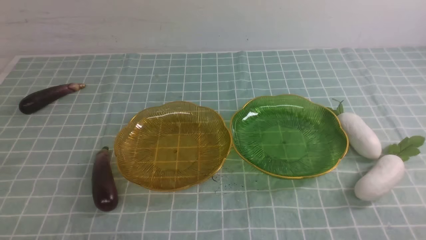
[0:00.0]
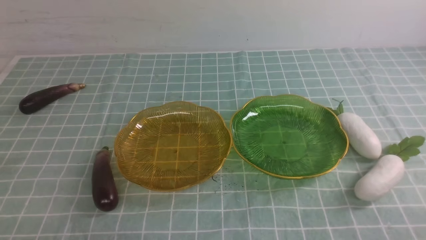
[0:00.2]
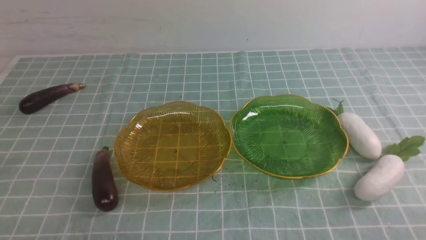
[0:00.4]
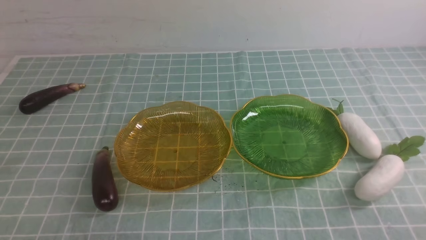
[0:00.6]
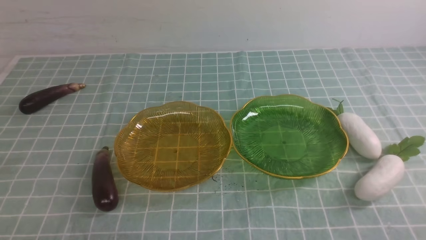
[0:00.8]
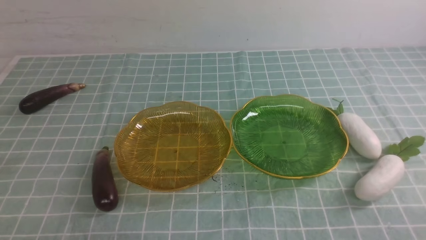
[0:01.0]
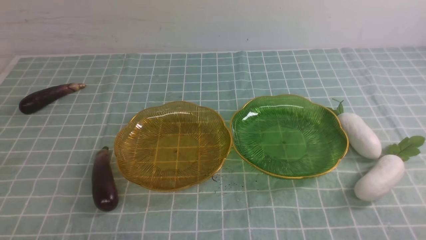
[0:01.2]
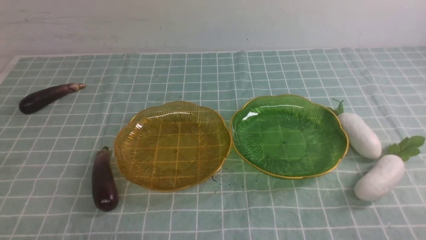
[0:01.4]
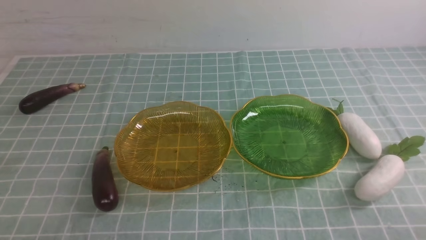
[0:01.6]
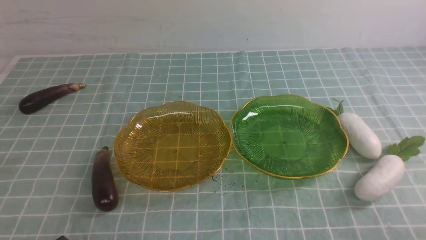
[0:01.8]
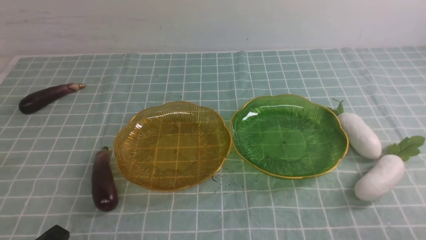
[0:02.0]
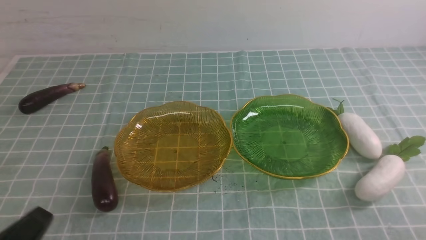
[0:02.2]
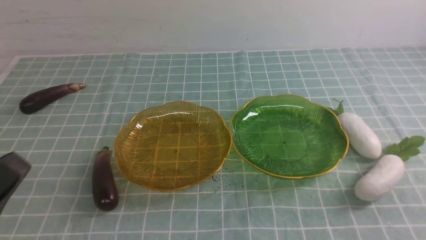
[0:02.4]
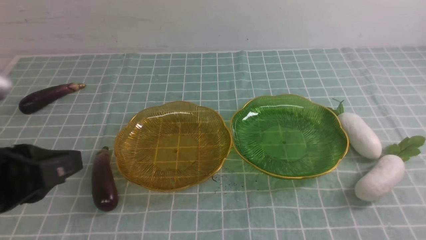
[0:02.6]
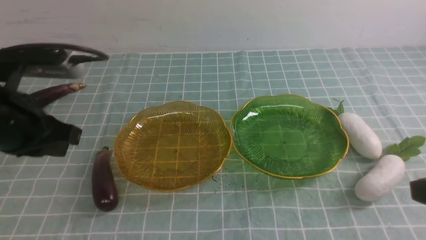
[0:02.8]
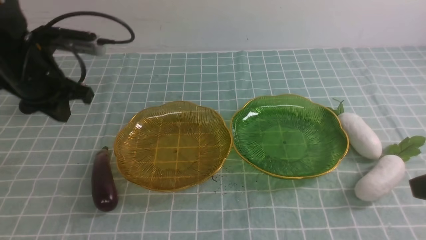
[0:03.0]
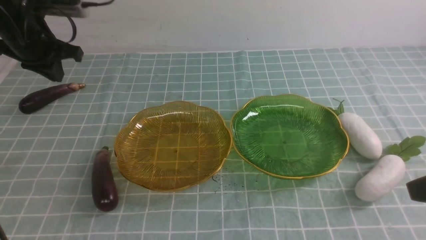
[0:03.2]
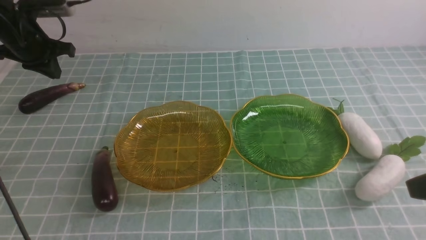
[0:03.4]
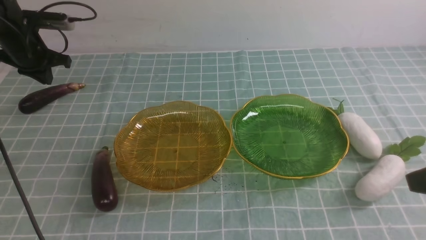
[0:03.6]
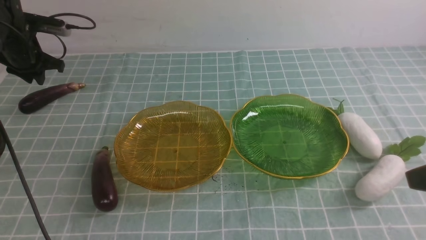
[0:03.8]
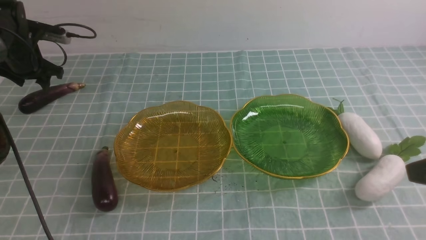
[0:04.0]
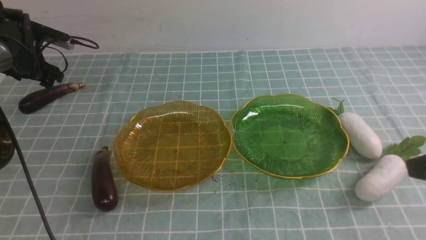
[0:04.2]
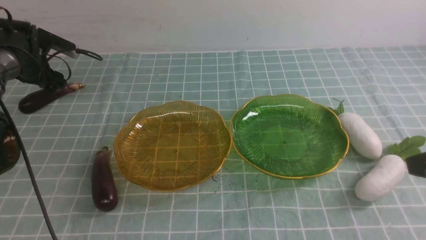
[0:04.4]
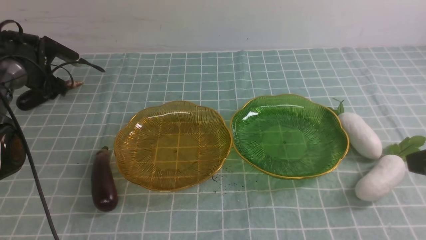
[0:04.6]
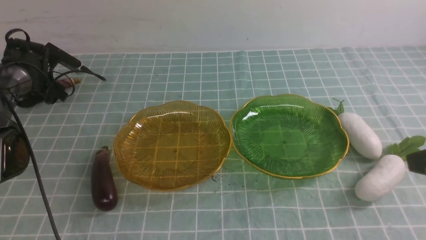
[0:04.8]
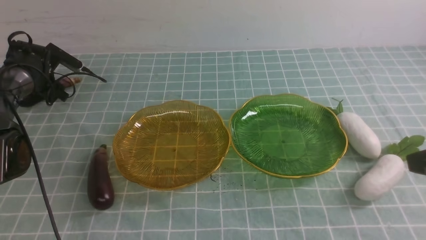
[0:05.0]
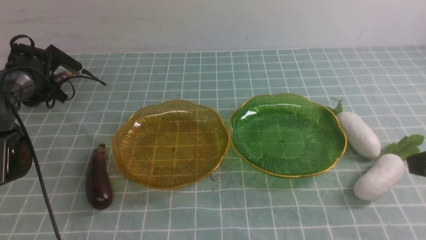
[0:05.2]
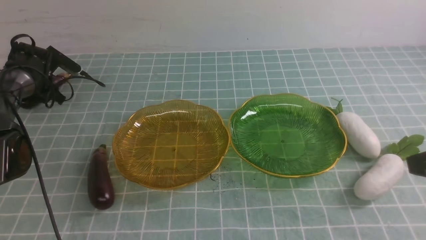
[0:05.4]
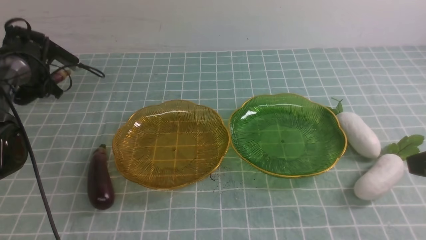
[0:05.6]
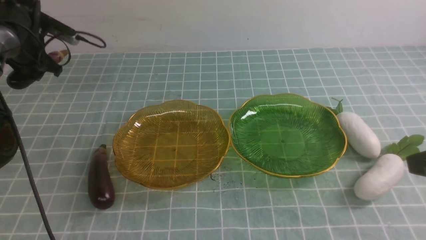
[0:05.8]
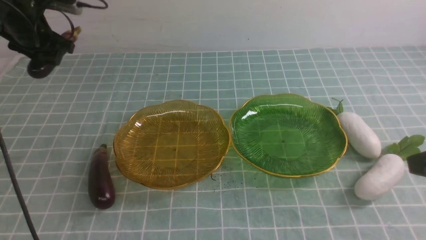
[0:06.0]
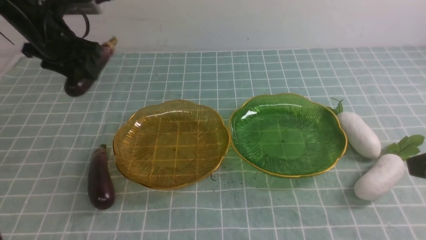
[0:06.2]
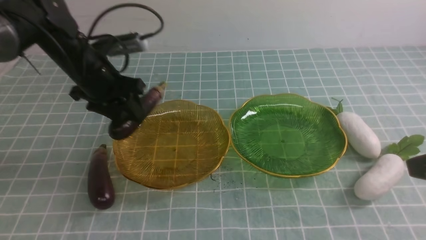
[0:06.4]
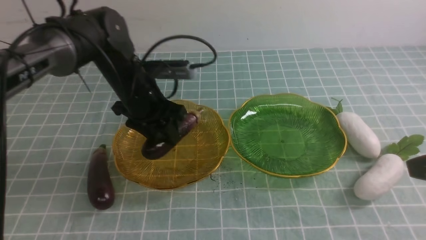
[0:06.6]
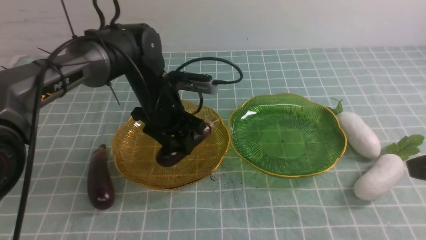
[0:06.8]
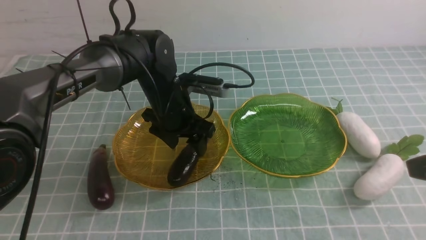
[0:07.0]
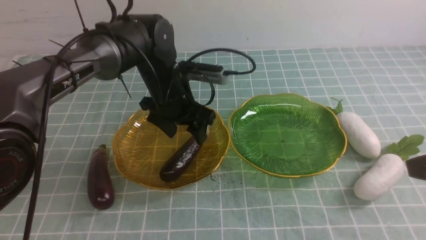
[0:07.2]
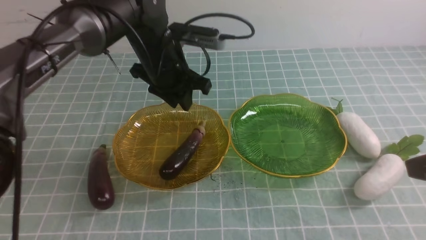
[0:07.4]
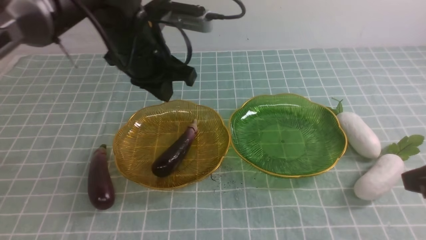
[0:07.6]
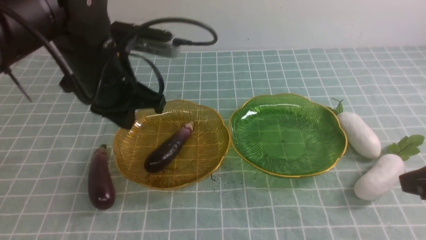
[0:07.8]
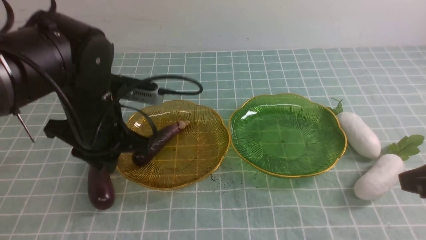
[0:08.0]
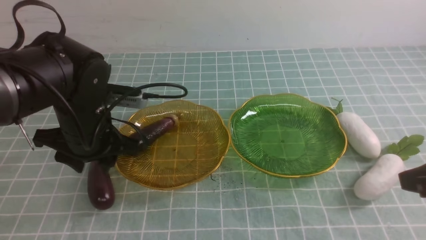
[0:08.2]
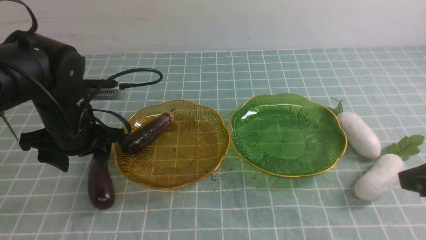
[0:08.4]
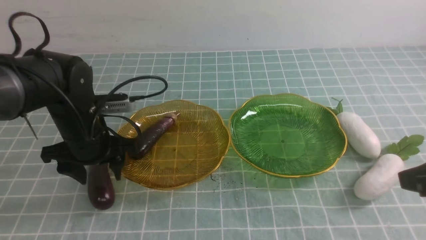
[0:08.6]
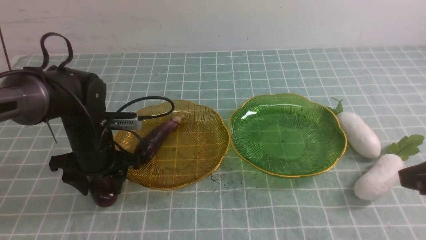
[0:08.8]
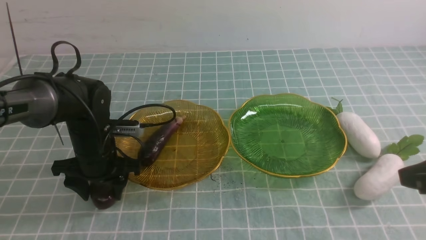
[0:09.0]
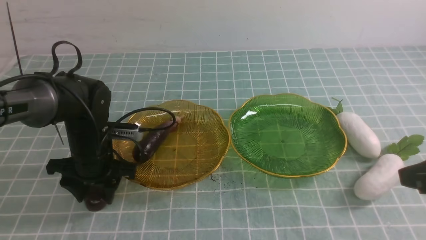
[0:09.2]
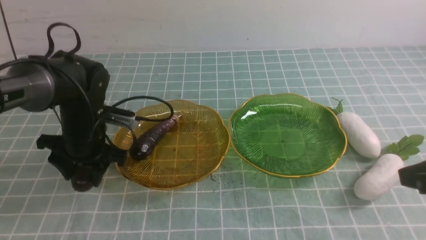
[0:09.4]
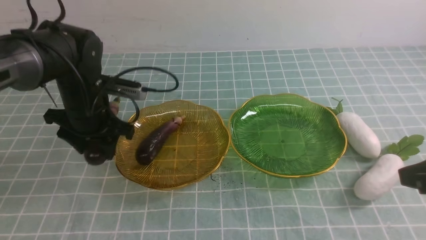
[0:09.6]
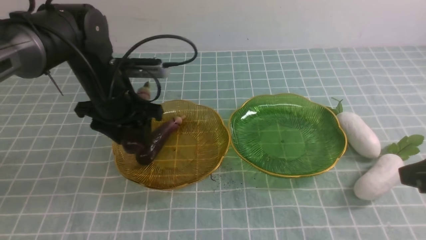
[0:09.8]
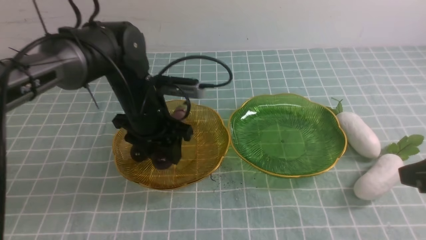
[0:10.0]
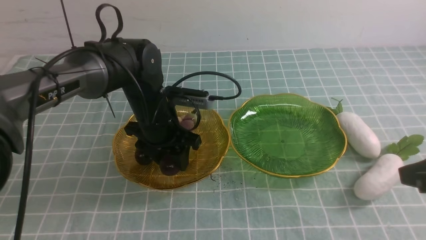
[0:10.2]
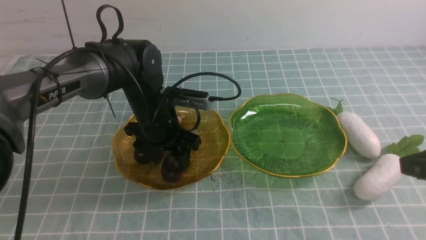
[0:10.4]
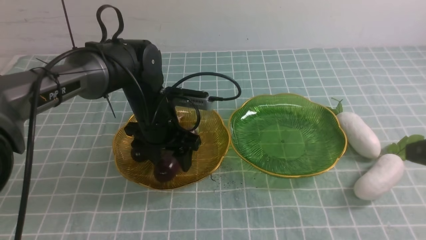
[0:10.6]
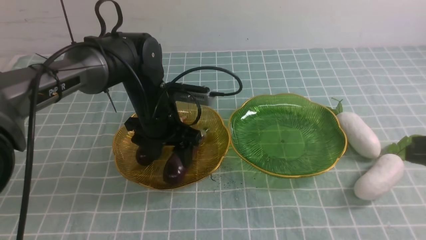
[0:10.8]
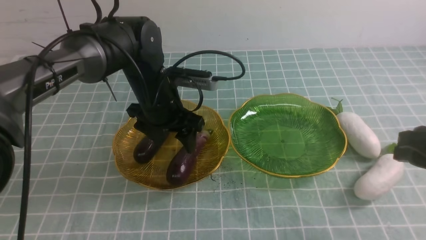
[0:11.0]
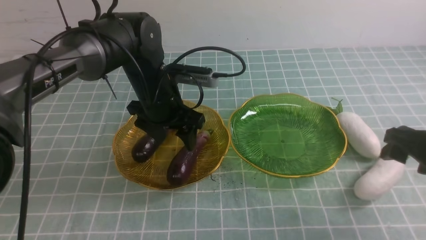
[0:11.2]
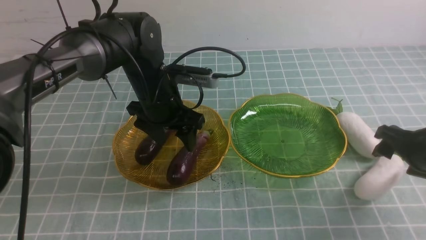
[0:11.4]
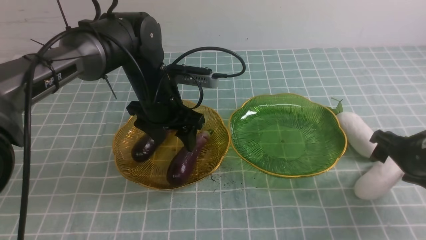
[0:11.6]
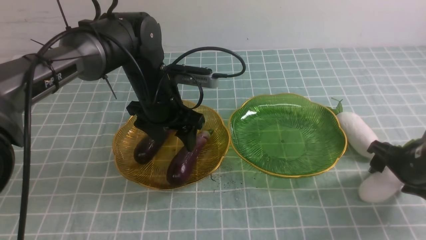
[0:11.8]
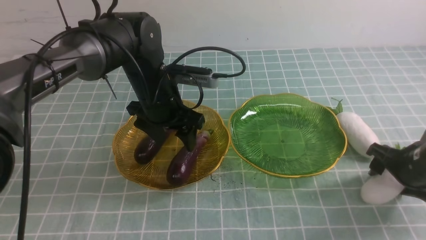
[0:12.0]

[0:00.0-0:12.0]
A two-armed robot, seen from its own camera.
Step, 0:00.0 to 0:10.8: use the left arm to grab an eggplant and put it into the left plate.
0:01.6 to 0:03.0: The left gripper moves forward and upward, some 35 cm.
0:03.0 to 0:04.4: The left gripper moves forward, downward and to the left, approximately 25 cm, and opens up.
0:04.4 to 0:06.0: The left gripper goes approximately 15 cm upward, to the right and backward, and closes up.
0:06.0 to 0:07.6: The left gripper moves to the right and backward, roughly 25 cm, and closes its fingers.
0:07.6 to 0:09.0: The left gripper goes roughly 20 cm downward and to the left, and opens its fingers.
0:09.0 to 0:10.4: The left gripper travels to the right by roughly 10 cm.
0:10.4 to 0:12.0: The right gripper travels downward and forward by about 20 cm, and opens its fingers.

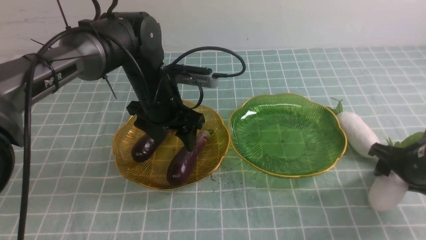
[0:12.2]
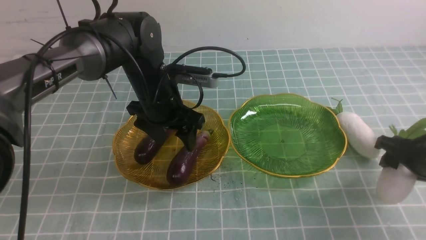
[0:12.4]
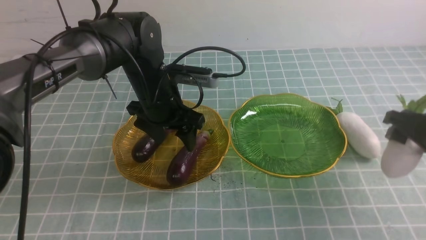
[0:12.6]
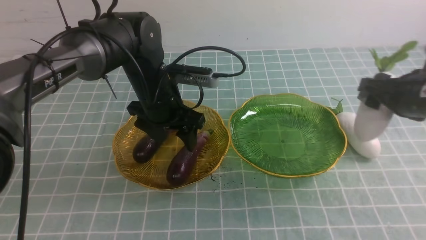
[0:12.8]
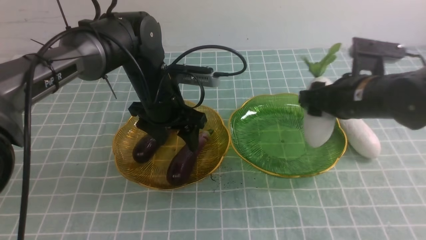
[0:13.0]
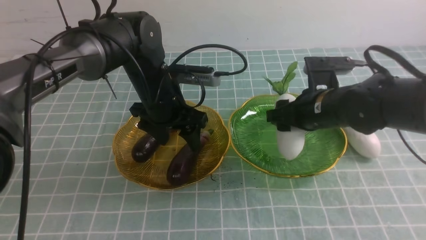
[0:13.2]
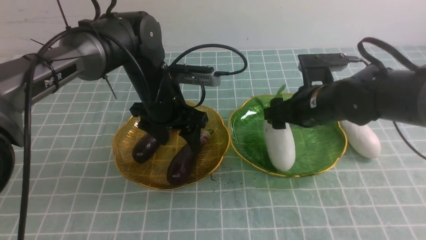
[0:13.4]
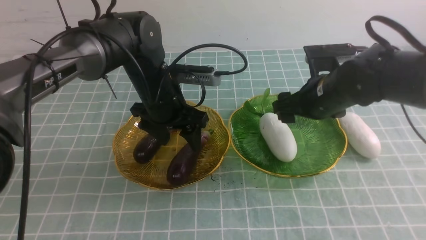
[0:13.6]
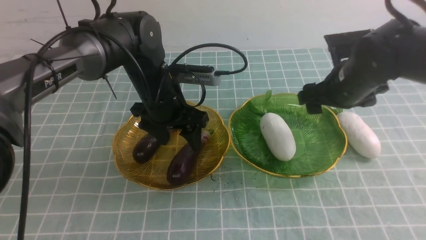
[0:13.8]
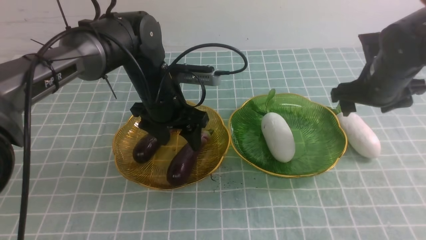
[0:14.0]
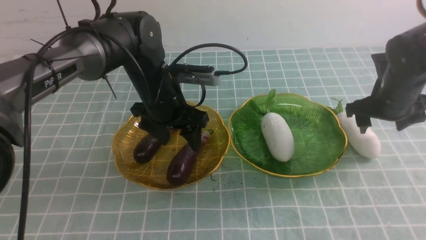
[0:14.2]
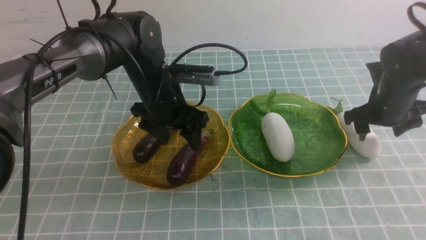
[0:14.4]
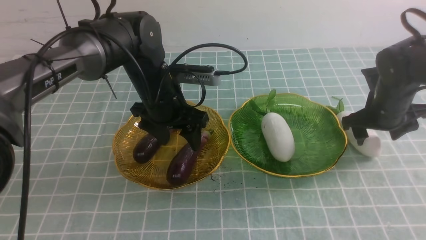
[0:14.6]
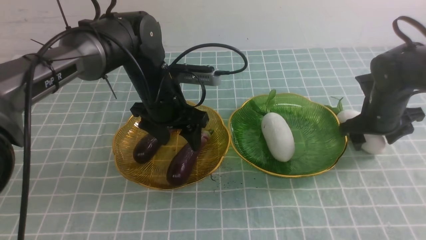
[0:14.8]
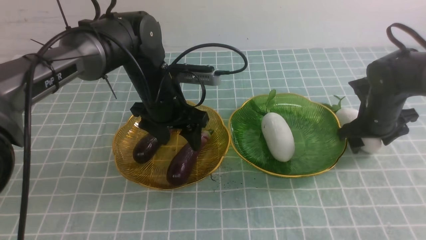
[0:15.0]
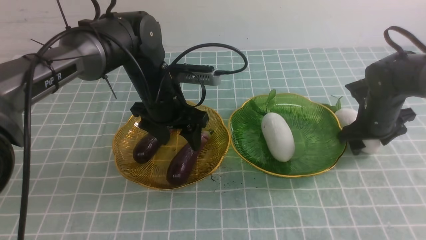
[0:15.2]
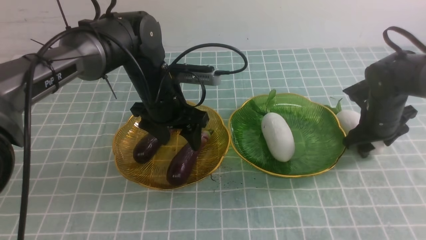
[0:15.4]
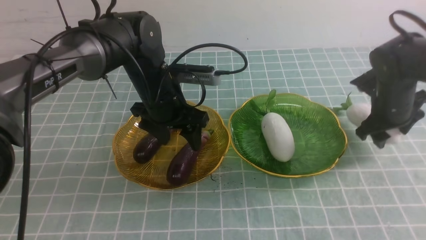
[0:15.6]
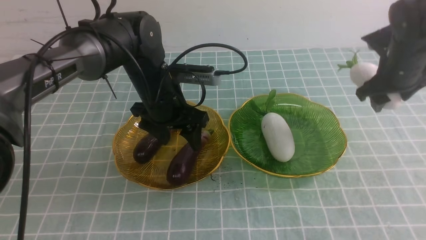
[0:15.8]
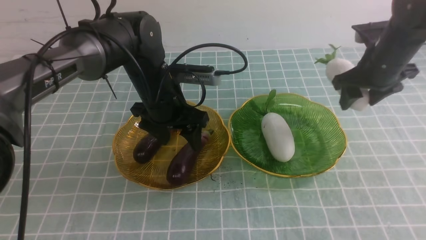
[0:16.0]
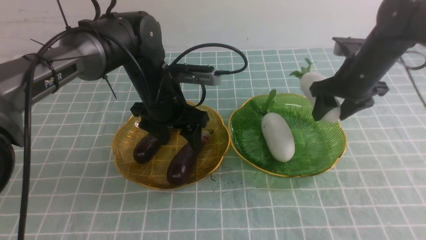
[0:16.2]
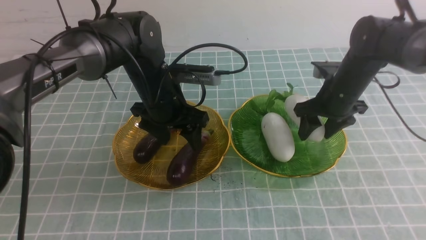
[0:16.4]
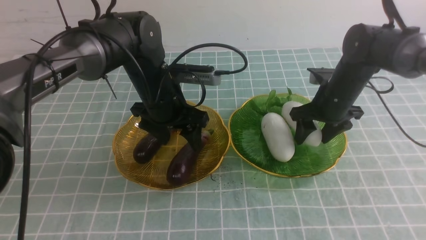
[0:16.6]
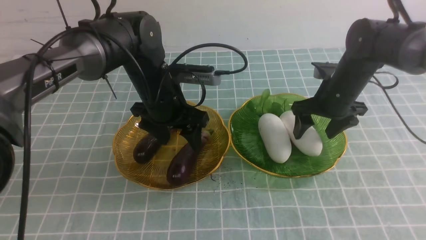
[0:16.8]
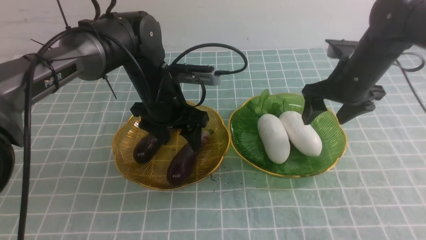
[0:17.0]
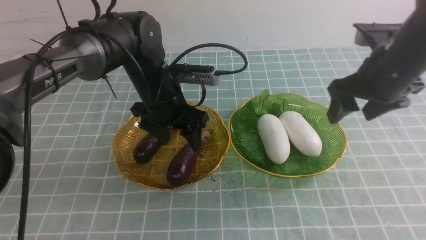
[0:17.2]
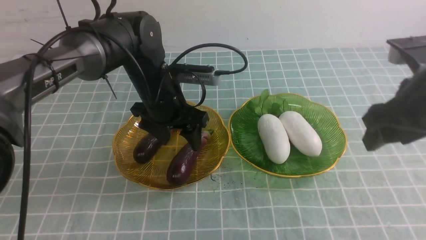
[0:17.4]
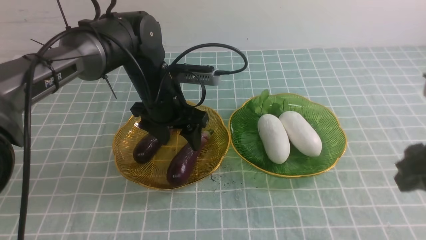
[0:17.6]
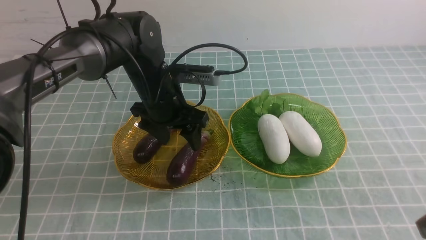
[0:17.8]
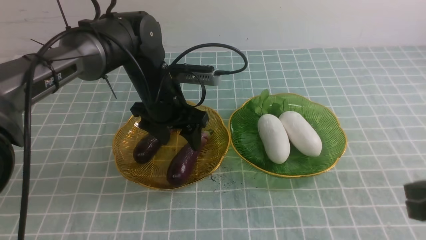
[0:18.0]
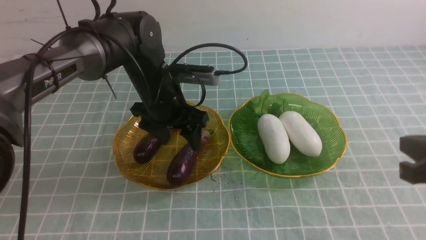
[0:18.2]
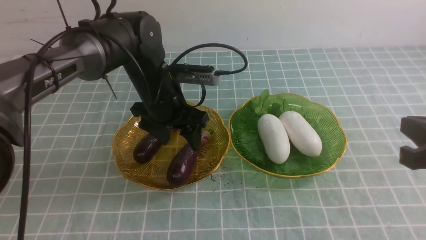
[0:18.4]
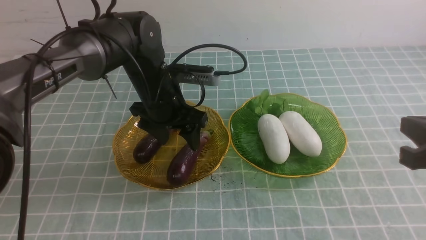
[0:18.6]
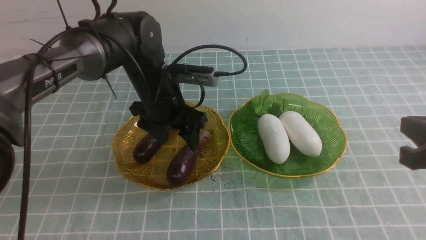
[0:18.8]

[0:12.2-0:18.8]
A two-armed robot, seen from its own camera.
Step, 0:12.2 to 0:16.8: use the right arm to grab a radish and put it into the right plate.
0:12.2 to 0:13.8: The right gripper heads to the left, forward and upward, covering roughly 15 cm.
0:13.8 to 0:15.4: The right gripper is displaced to the right and downward by about 10 cm.
0:15.4 to 0:17.2: The right gripper goes up and down, some 15 cm each way, reversing 2 times.
0:17.2 to 0:18.8: The right gripper goes roughly 15 cm backward, and closes up.
